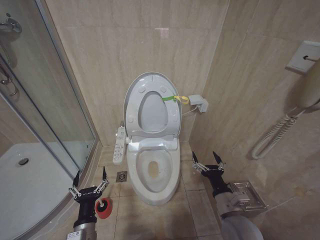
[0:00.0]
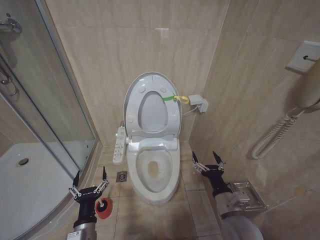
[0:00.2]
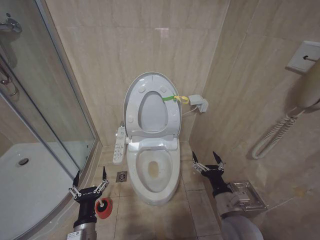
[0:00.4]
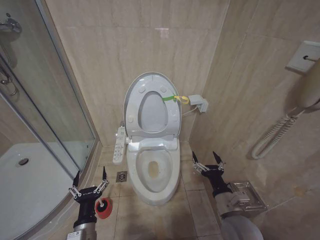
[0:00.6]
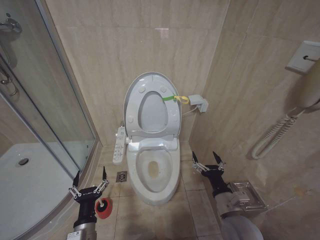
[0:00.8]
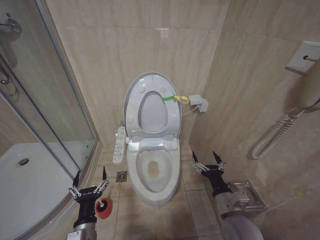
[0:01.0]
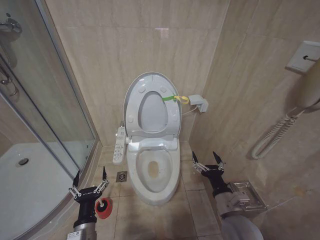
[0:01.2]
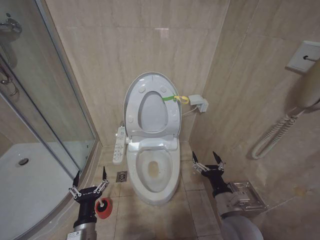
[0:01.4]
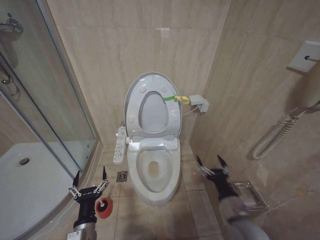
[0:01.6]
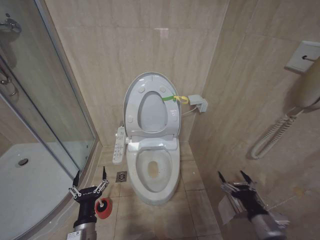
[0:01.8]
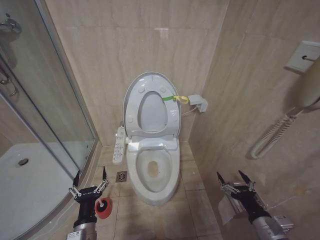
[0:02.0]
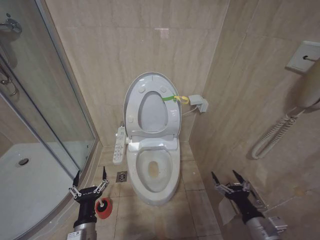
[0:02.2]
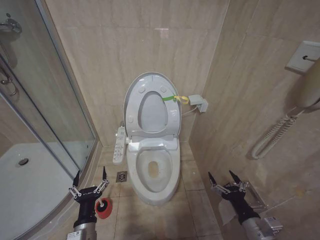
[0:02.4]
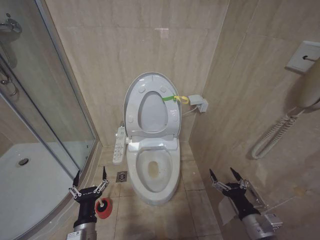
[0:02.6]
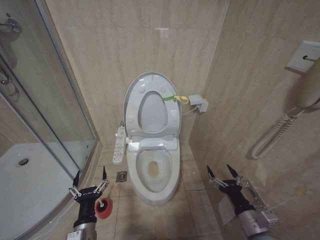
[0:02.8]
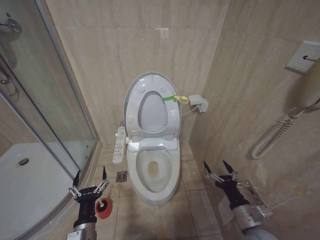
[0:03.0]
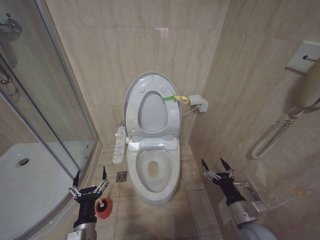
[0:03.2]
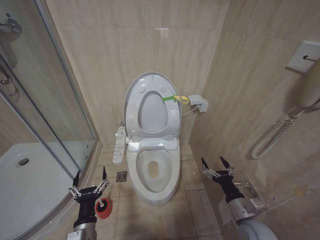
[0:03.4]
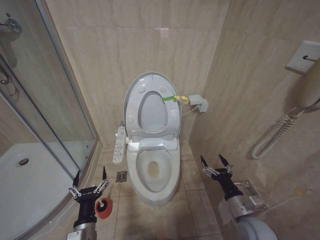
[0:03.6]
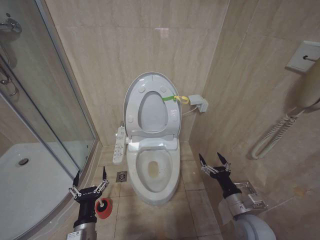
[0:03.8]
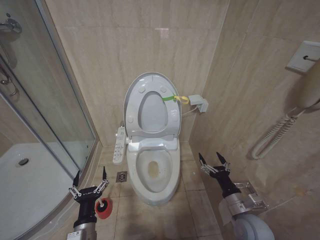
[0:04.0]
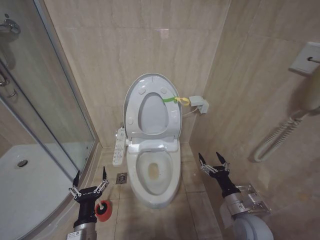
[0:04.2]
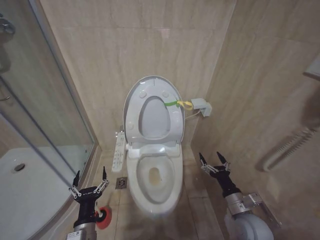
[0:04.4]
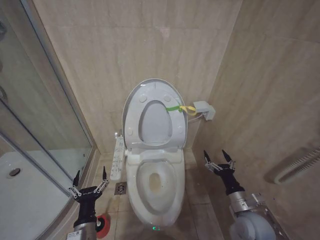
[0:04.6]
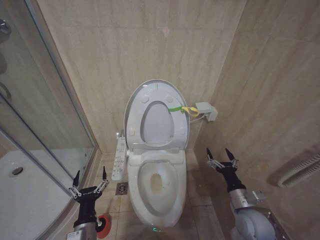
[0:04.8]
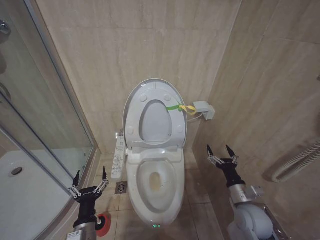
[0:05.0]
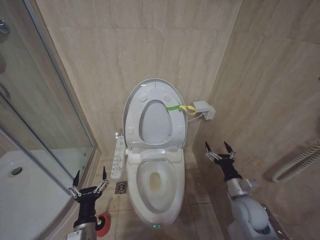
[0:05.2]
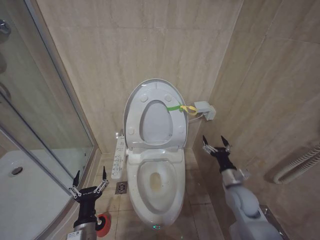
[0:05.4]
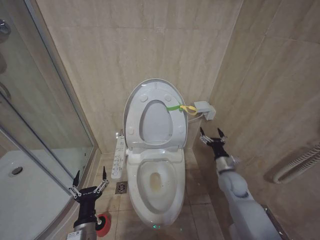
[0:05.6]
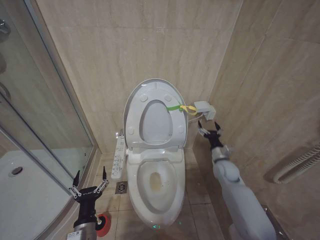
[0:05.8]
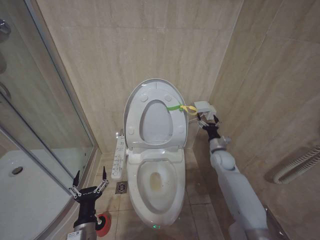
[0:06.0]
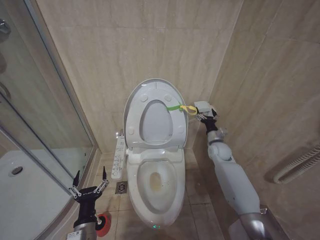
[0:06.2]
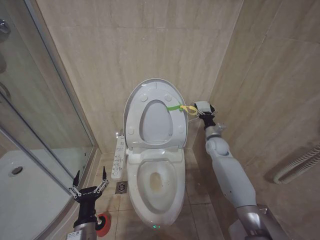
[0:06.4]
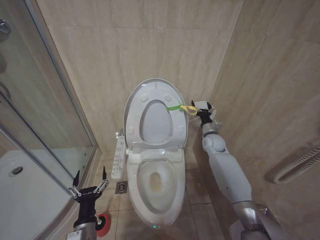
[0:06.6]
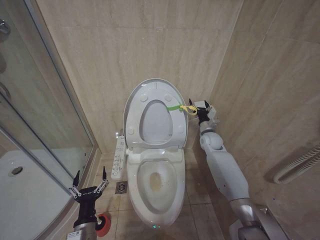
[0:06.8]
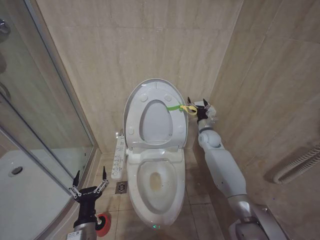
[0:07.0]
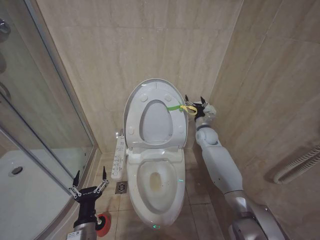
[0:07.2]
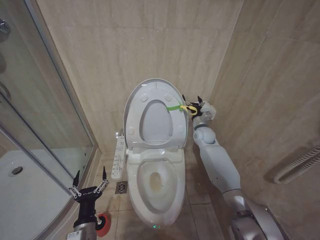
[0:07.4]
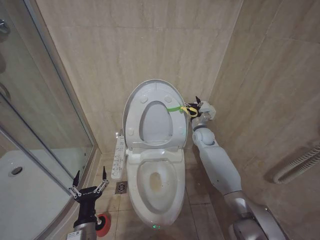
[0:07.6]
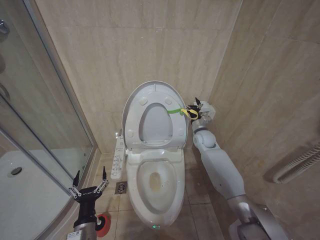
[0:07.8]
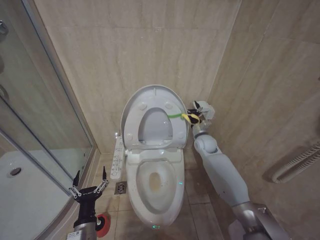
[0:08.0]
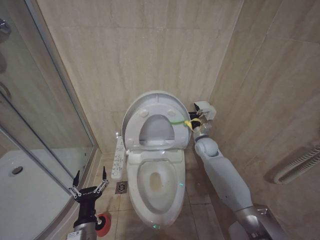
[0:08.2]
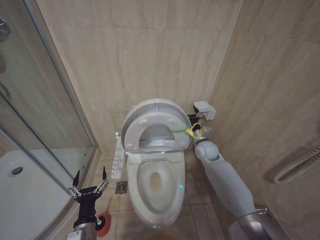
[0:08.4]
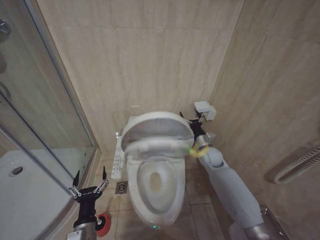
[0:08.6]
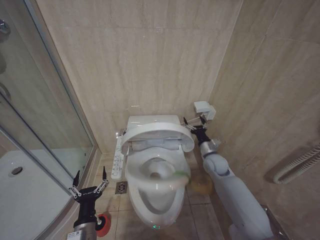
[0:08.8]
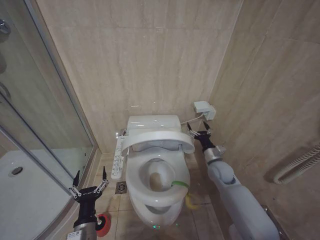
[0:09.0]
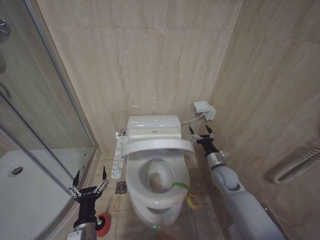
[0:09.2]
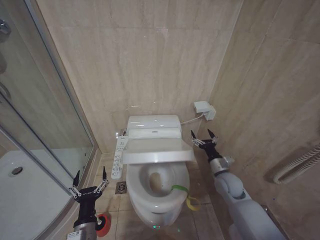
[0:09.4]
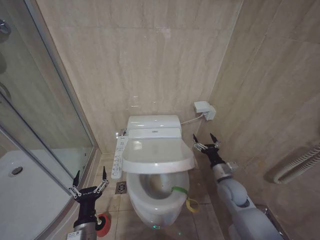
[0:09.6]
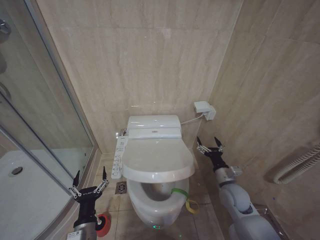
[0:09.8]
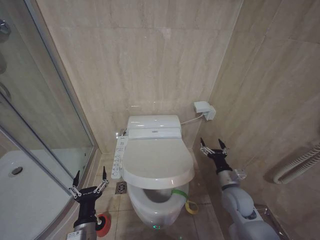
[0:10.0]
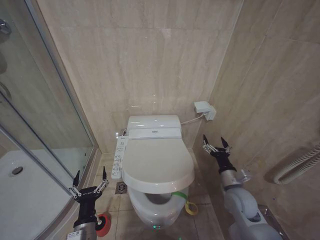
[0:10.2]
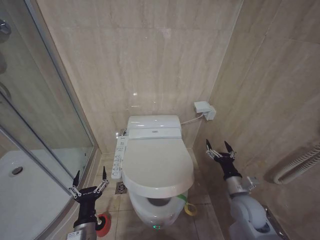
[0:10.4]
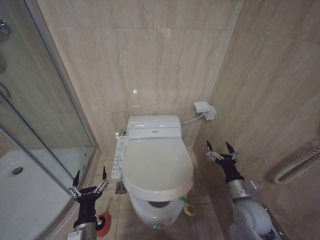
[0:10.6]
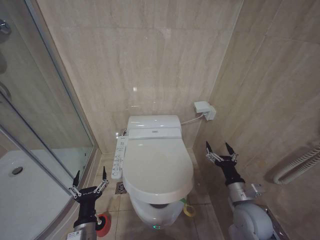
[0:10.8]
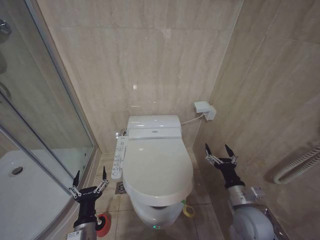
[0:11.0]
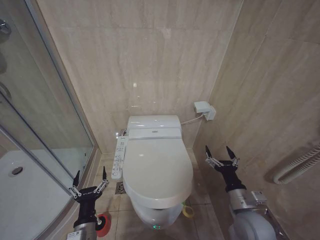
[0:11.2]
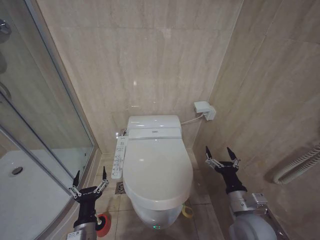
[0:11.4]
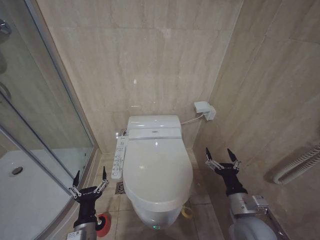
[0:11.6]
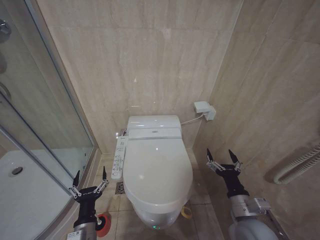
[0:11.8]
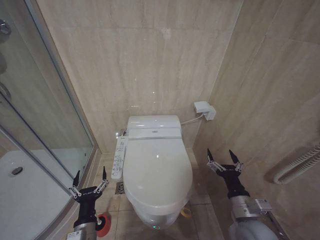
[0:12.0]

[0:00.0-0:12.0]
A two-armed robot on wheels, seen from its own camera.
Task of the whole recording: Open the toilet lid, clean the toilet bowl with a toilet brush, close the toilet lid, and flush.
0:00.0 to 0:01.6: Neither gripper changes place.
0:01.6 to 0:03.0: The right gripper goes about 5 cm to the right.
0:03.0 to 0:04.4: The right gripper travels forward by some 5 cm.
0:04.4 to 0:06.0: The right gripper goes some 25 cm forward.
0:06.0 to 0:07.6: The right gripper shifts some 15 cm forward, upward and to the left.
0:07.6 to 0:09.0: The right gripper is displaced backward and downward by about 15 cm.
0:09.0 to 0:10.4: The right gripper moves backward, some 15 cm.
0:10.4 to 0:12.0: The right gripper shifts approximately 10 cm backward.

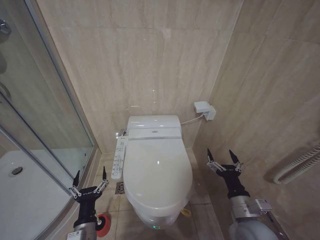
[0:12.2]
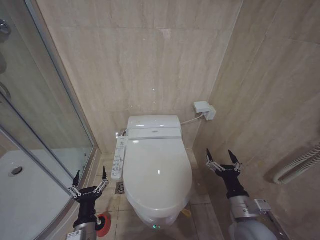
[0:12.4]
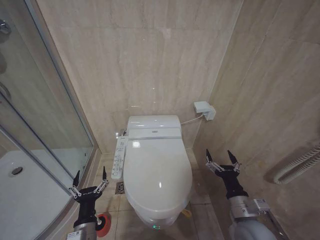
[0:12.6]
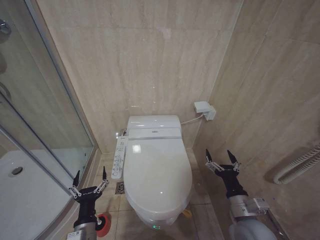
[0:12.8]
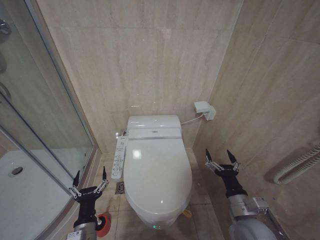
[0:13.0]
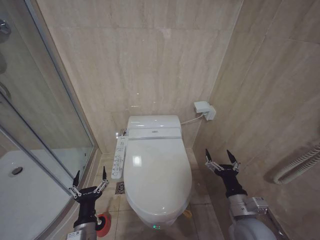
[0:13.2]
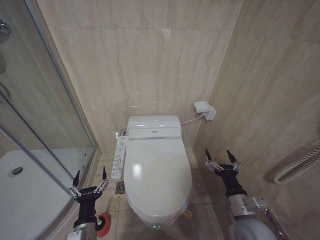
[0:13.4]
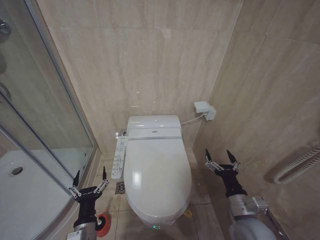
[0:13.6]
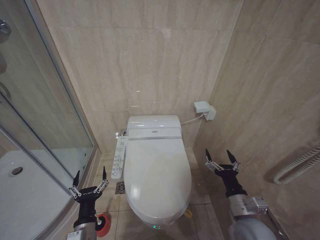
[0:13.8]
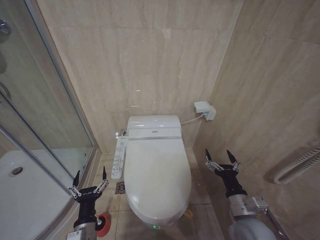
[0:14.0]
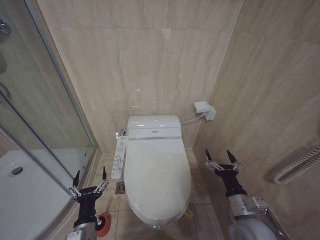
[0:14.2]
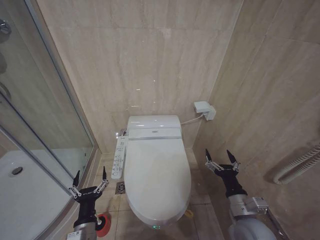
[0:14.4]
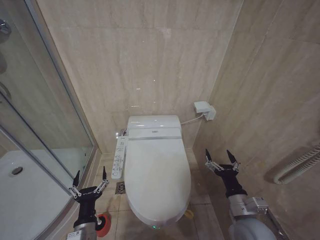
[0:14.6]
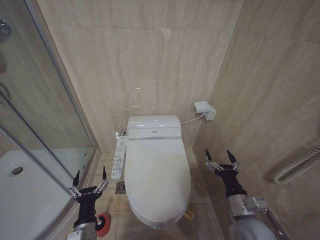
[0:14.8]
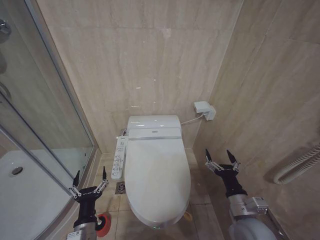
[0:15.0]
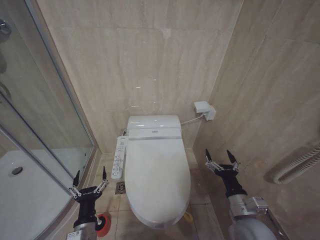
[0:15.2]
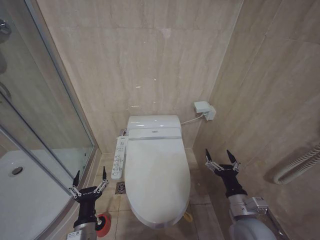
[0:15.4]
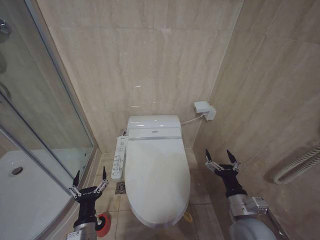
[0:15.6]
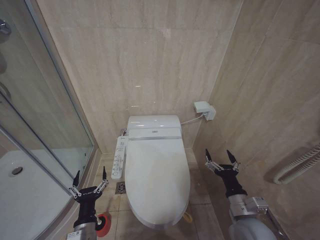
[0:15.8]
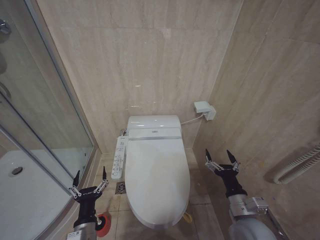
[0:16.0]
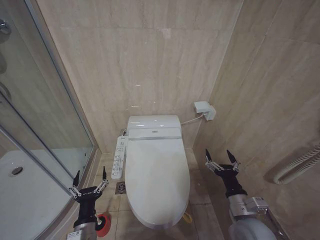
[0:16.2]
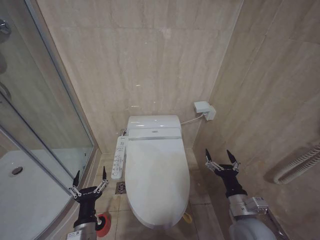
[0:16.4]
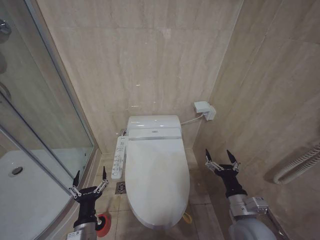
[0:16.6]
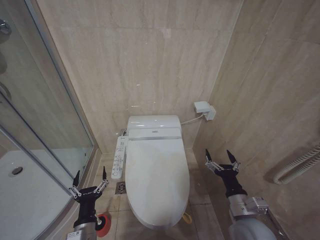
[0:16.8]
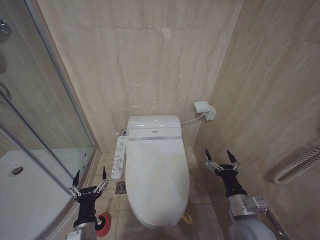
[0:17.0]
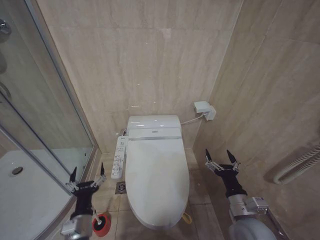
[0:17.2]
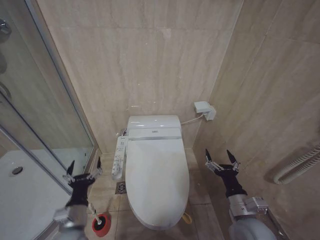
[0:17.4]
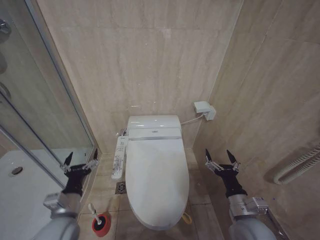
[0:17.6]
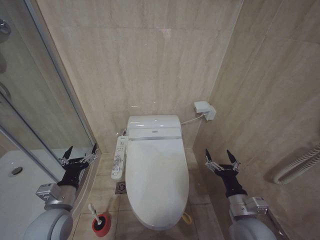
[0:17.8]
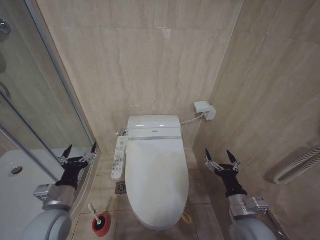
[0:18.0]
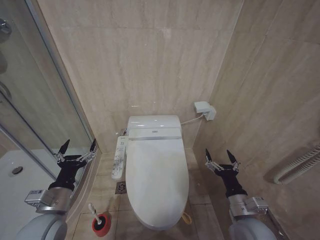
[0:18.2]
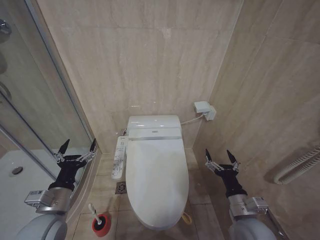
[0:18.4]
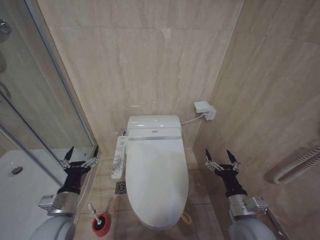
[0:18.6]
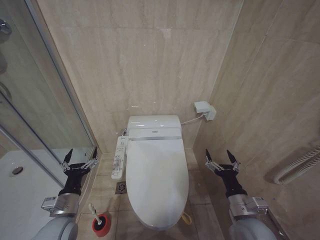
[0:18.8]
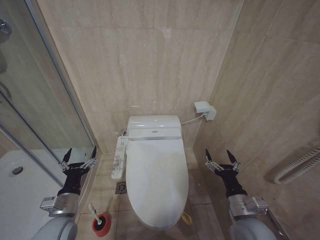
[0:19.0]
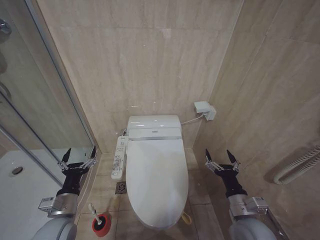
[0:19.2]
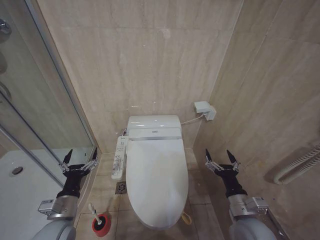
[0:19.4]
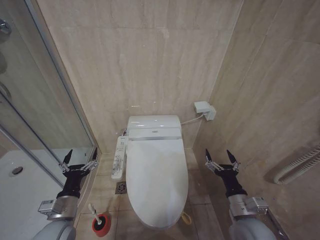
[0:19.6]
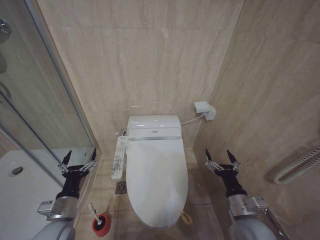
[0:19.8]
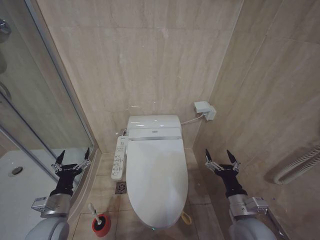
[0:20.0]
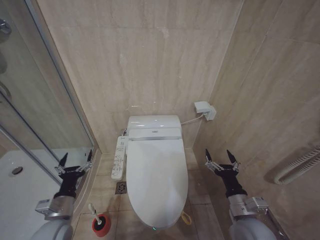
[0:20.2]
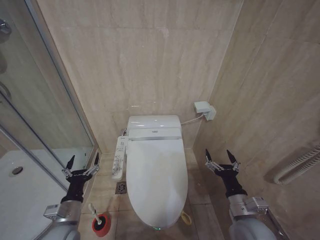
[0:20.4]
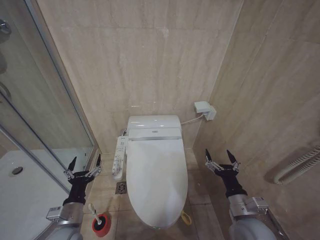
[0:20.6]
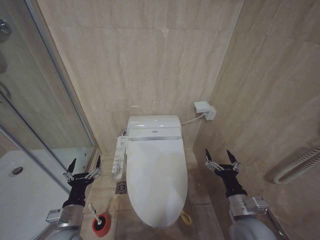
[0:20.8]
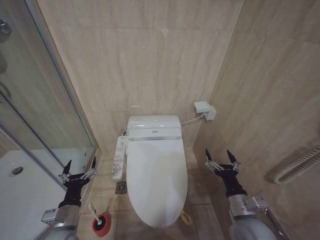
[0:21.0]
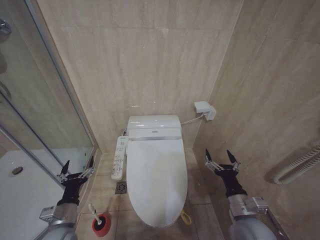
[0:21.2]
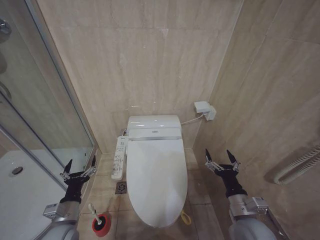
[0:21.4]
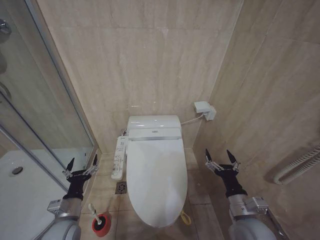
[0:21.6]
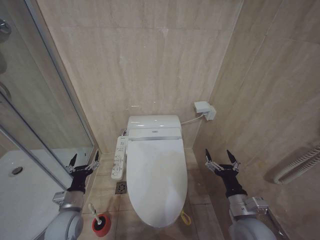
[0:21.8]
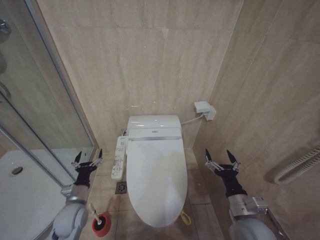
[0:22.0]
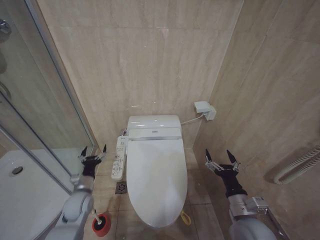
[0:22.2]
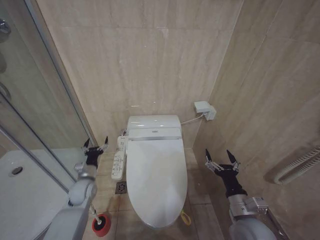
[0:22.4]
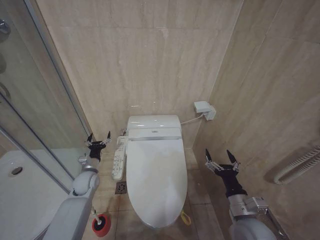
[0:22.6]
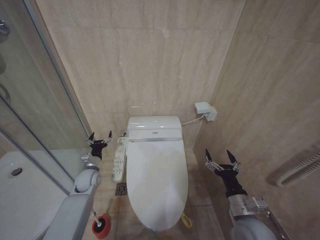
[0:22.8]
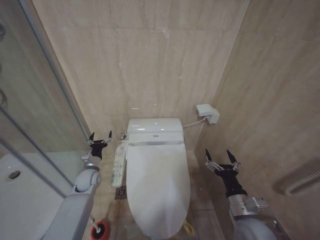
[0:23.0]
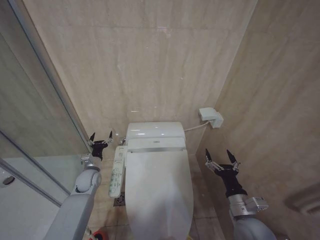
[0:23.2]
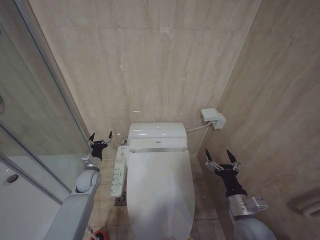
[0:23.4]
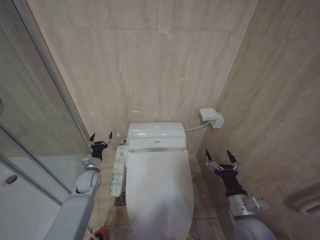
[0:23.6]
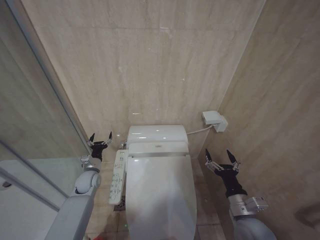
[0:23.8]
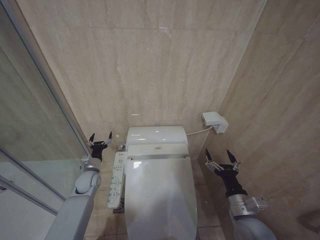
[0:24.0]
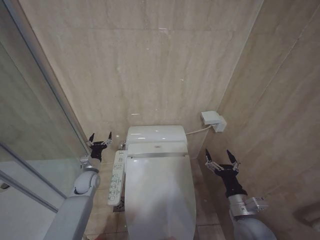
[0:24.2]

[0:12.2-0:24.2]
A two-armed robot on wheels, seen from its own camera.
Task of the whole recording: Open the toilet lid, clean the toilet bowl with a toilet brush, close the toilet lid, and flush.
0:12.2 to 0:16.6: The two grippers keep their place.
0:16.6 to 0:18.2: The left gripper goes approximately 15 cm upward, to the left and forward.
0:18.2 to 0:19.8: The left gripper shifts some 5 cm downward.
0:19.8 to 0:21.2: The grippers make only small movements.
0:21.2 to 0:22.6: The left gripper moves forward, approximately 20 cm.
0:22.6 to 0:24.2: The grippers stay close to where they were, moving slightly.
